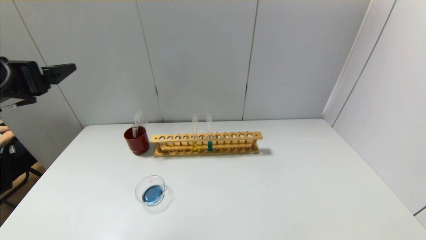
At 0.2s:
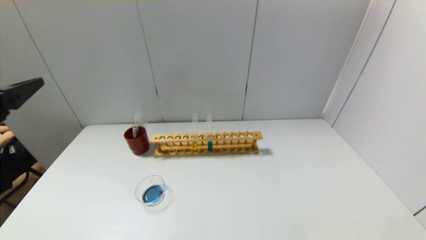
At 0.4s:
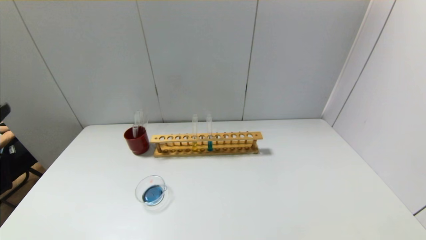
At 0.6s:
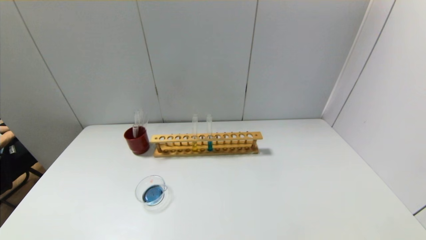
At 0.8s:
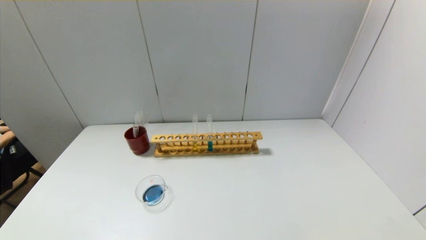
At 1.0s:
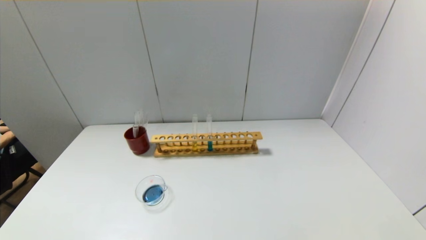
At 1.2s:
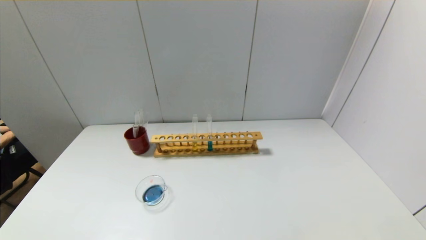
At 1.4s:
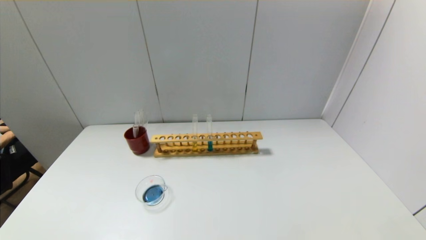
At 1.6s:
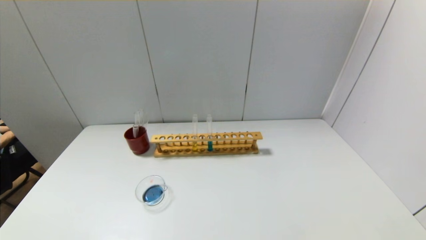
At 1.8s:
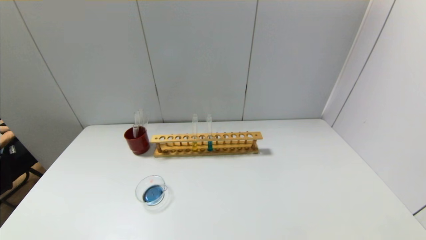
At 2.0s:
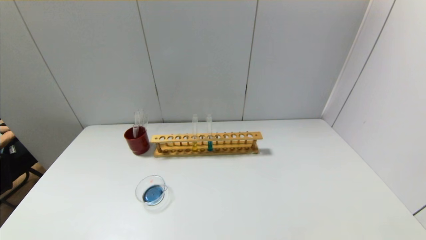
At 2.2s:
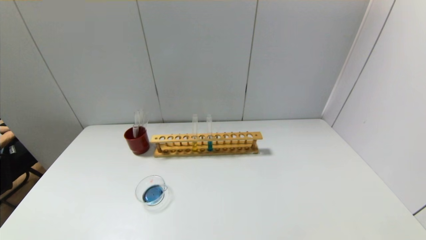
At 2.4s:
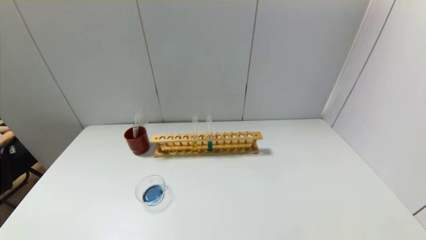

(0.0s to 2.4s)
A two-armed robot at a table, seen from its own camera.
0.0s - 1.2s: The left gripper travels backward and downward by approximately 30 cm.

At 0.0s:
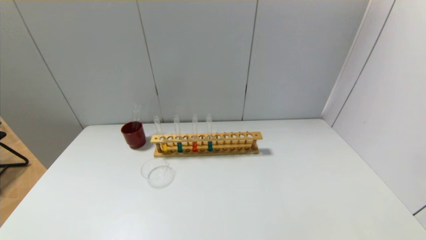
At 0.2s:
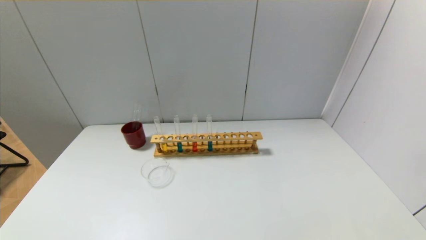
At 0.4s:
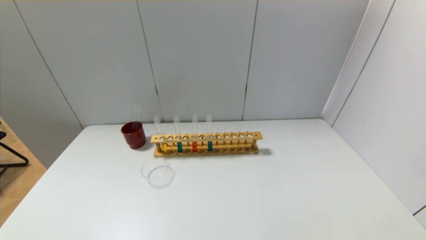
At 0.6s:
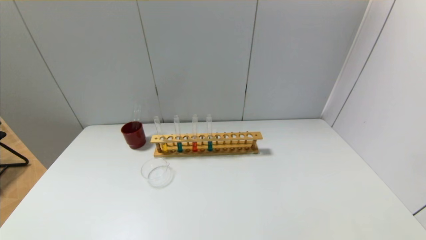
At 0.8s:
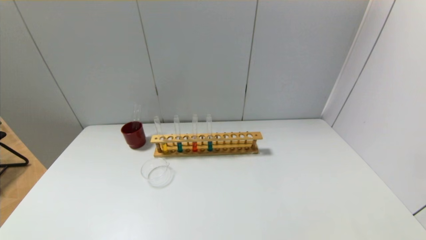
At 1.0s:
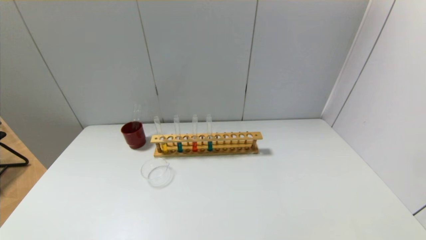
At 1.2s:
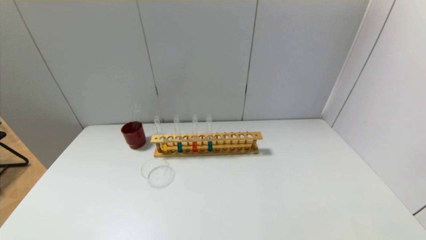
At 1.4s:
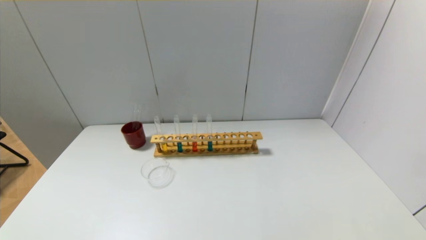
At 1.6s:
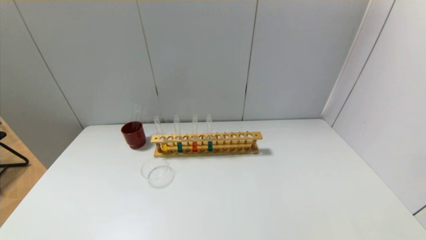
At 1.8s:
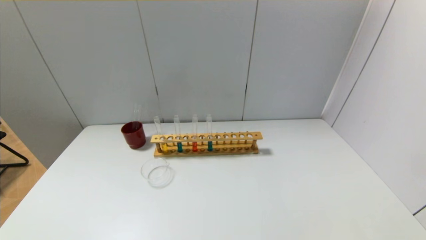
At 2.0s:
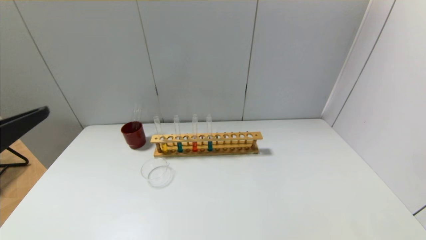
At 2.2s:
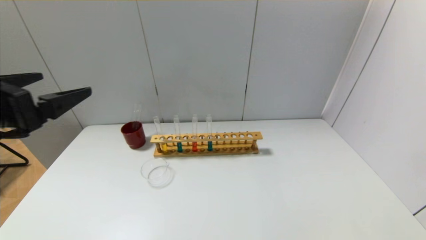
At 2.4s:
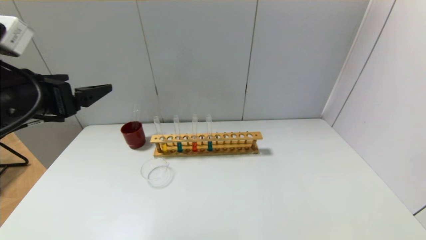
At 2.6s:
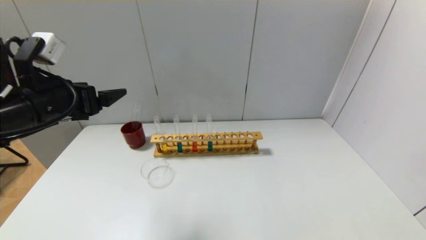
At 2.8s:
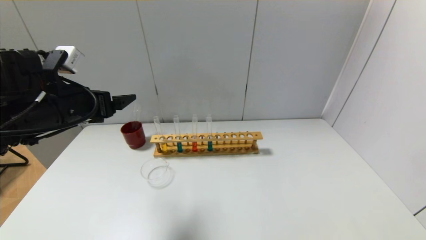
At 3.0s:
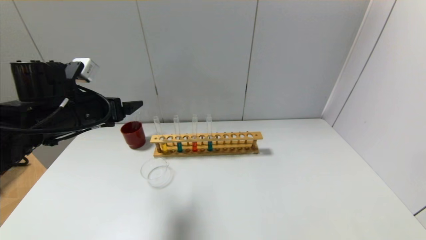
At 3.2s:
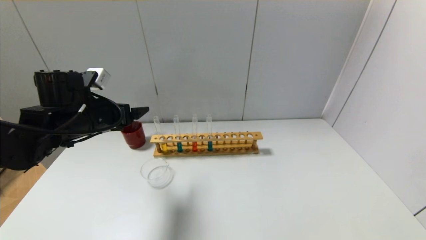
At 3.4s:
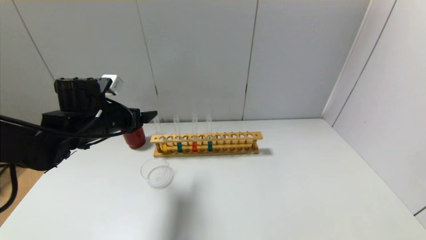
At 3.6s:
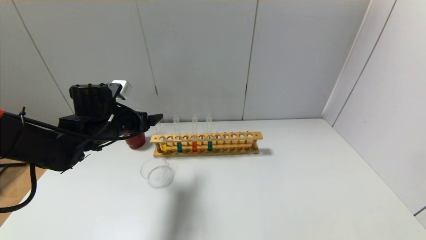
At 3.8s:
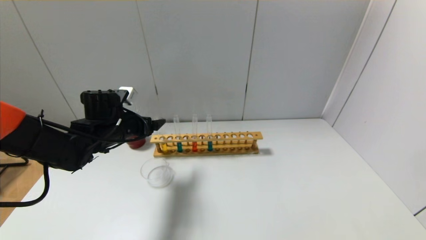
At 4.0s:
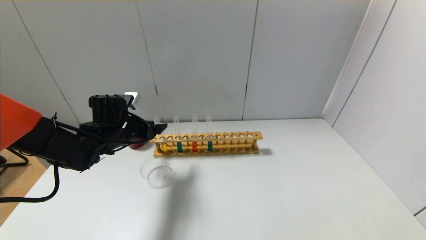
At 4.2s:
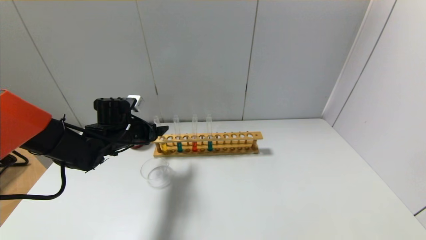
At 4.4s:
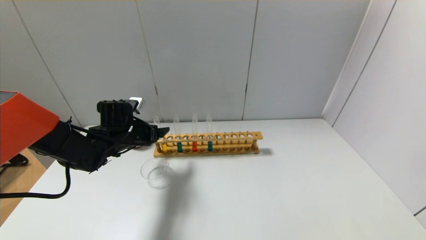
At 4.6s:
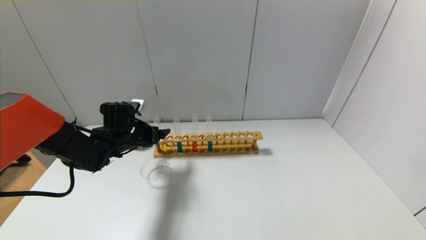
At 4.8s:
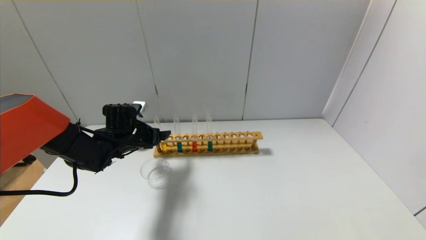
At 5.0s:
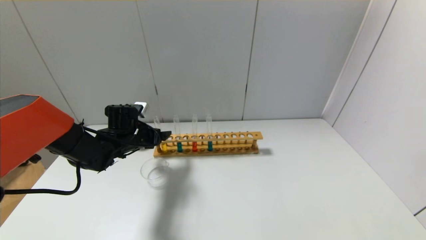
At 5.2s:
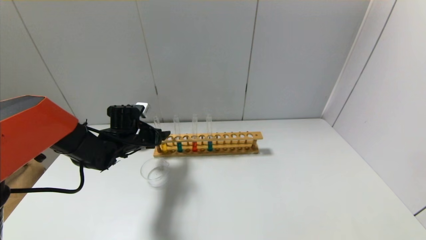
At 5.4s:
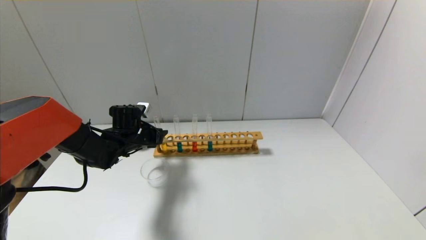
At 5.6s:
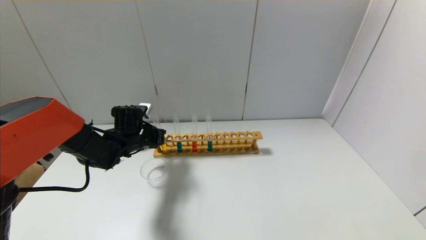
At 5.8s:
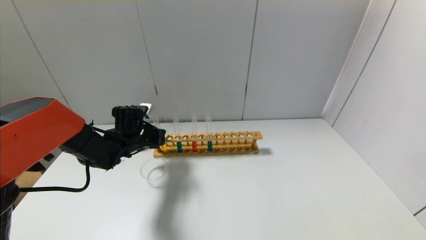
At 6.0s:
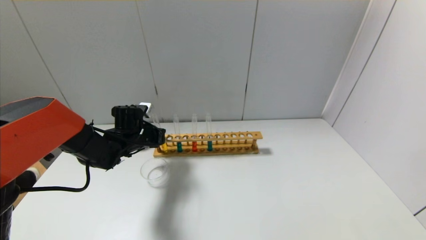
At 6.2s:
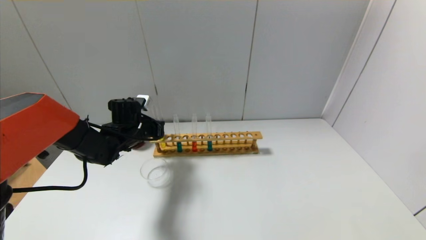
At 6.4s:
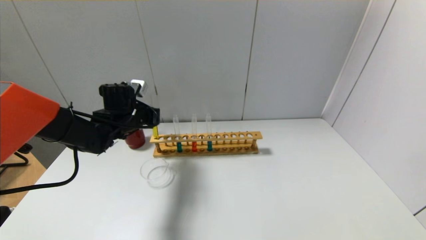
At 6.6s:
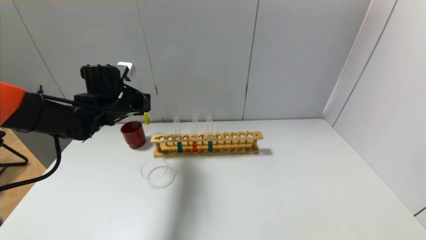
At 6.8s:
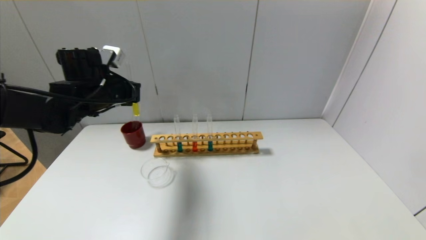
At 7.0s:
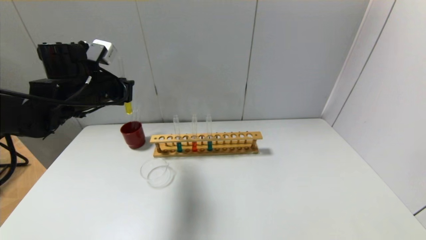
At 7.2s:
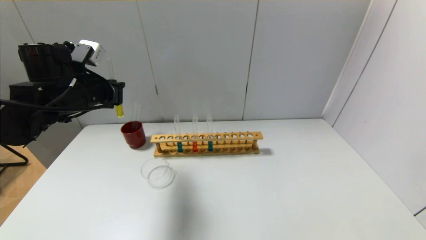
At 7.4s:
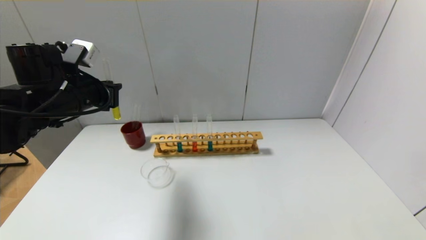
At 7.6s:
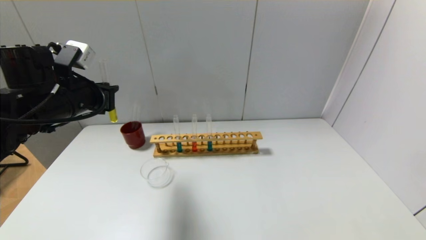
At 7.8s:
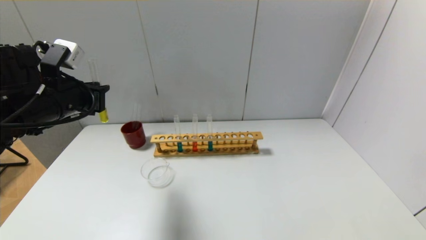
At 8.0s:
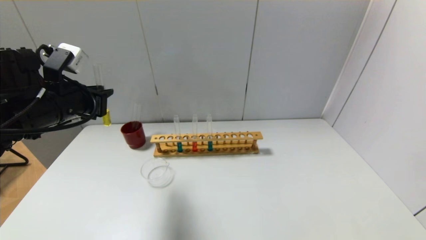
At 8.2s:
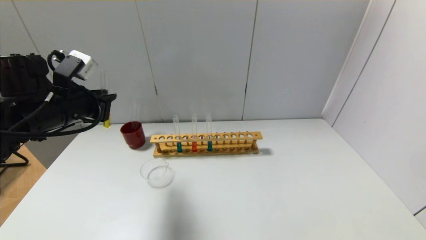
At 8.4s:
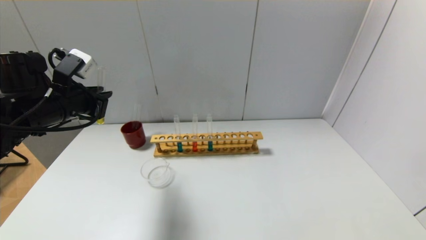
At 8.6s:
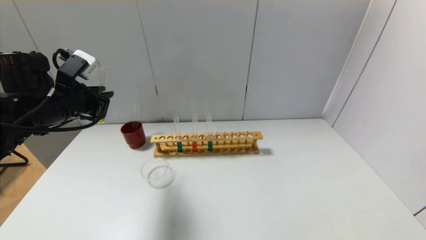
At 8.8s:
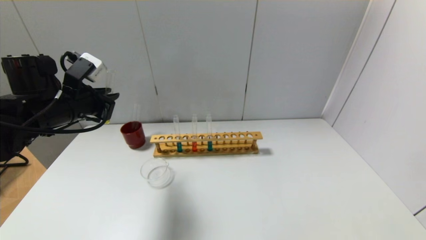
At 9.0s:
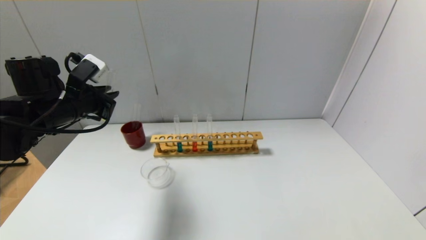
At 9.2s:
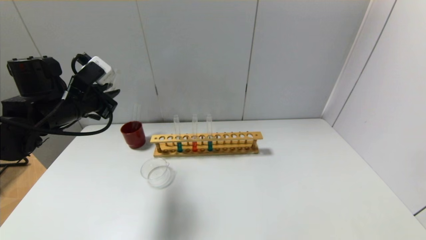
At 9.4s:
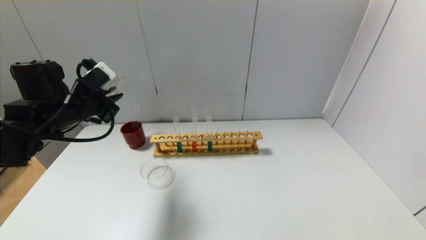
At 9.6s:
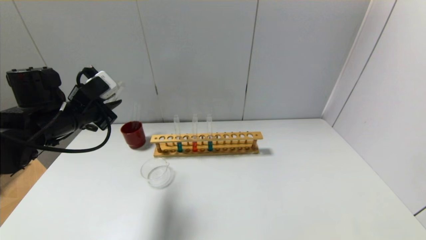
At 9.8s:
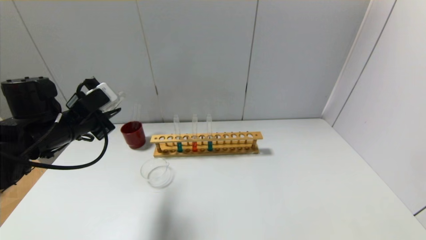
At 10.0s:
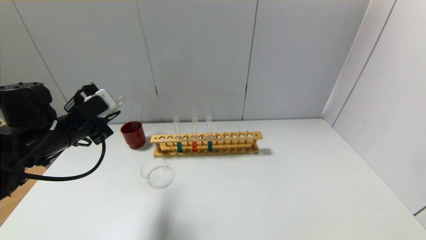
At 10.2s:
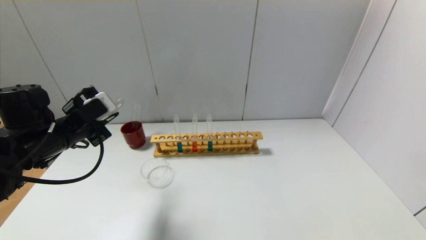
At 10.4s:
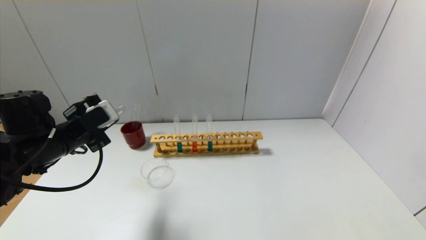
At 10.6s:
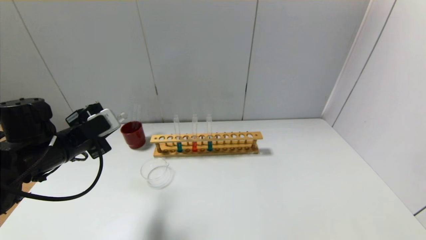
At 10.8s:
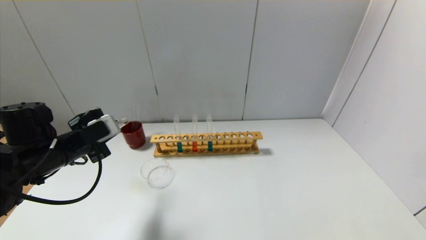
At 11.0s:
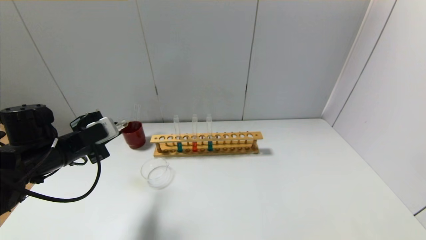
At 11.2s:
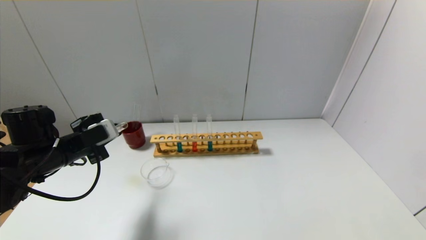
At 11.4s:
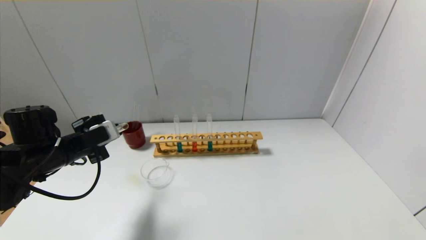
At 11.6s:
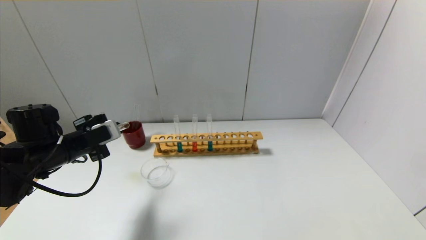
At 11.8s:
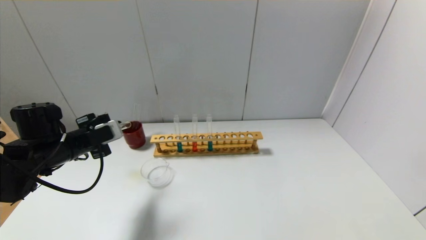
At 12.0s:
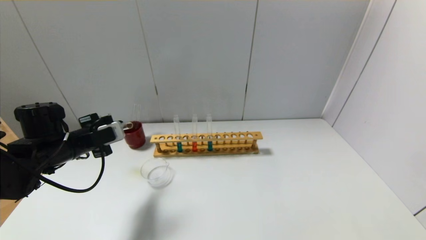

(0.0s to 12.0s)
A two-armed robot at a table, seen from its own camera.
Step, 0.0s - 5.6s: Grasp the yellow reagent with the left gripper.
1.6s - 3.0s: The left gripper goes some 30 cm forward.
3.0s - 4.4s: The left gripper travels downward and forward by about 15 cm.
4.4s - 6.0s: The left gripper closes.
6.0s - 7.6s: The left gripper moves upward and backward, approximately 20 cm.
7.6s - 9.0s: The grippers move only a little.
9.0s - 10.4s: The left gripper changes place by approximately 5 cm.
10.4s - 12.0s: The left gripper changes place by approximately 5 cm.

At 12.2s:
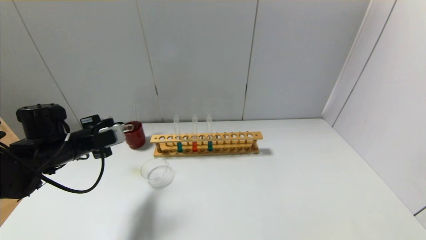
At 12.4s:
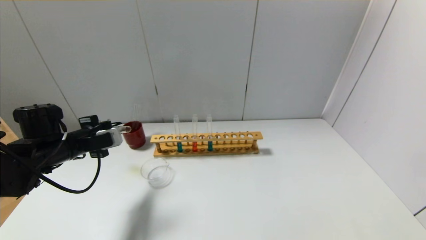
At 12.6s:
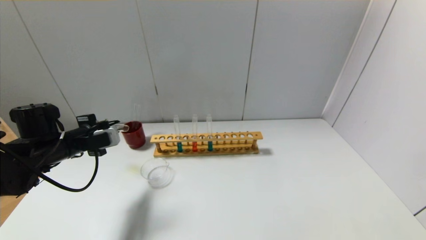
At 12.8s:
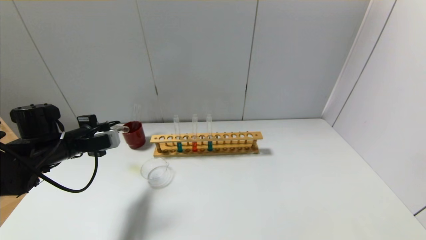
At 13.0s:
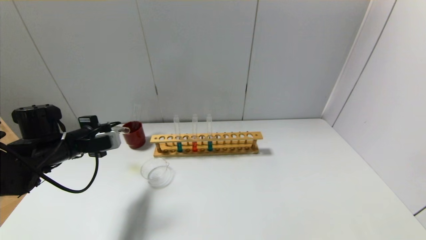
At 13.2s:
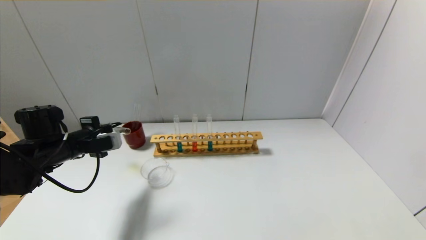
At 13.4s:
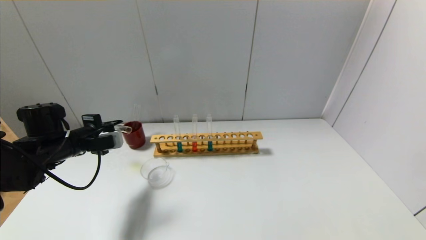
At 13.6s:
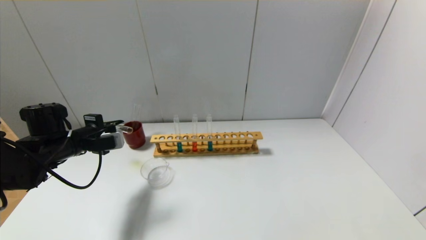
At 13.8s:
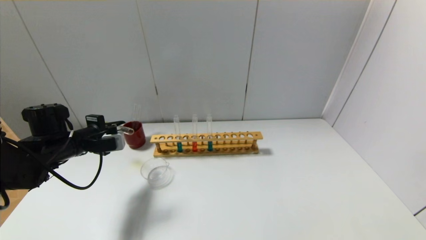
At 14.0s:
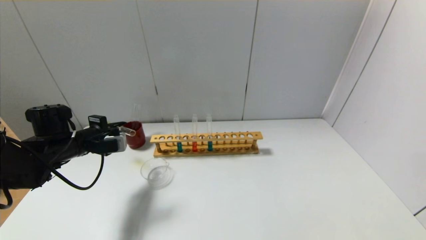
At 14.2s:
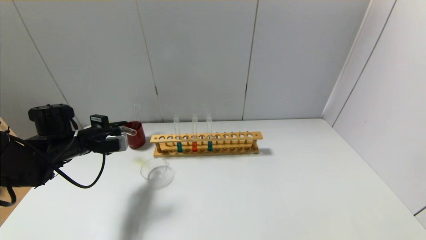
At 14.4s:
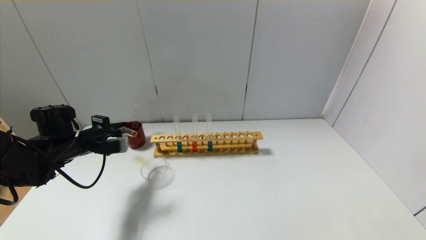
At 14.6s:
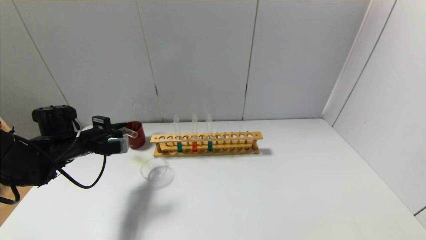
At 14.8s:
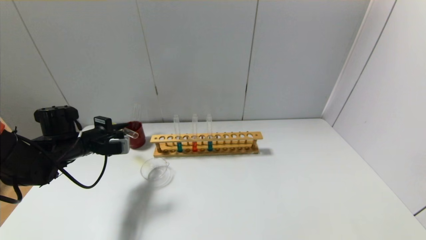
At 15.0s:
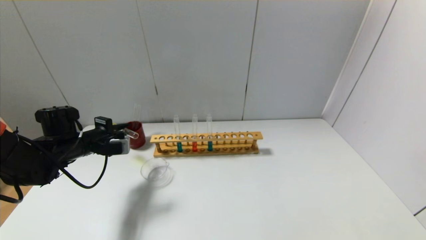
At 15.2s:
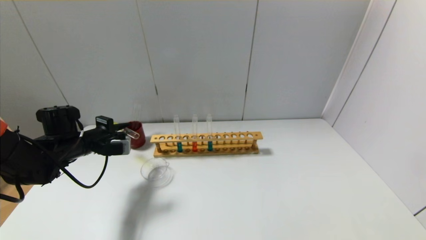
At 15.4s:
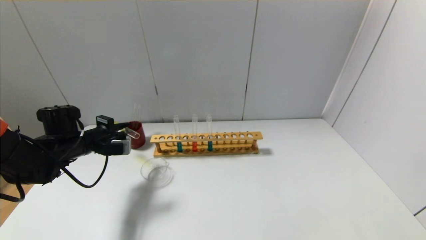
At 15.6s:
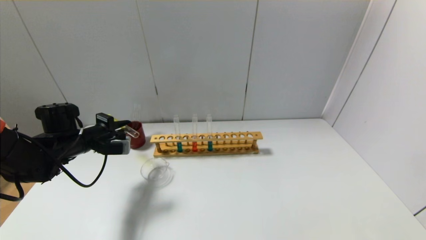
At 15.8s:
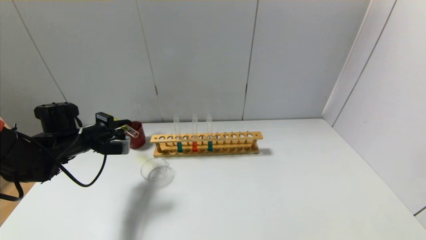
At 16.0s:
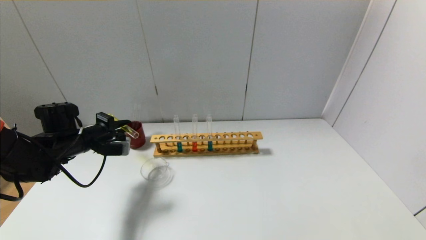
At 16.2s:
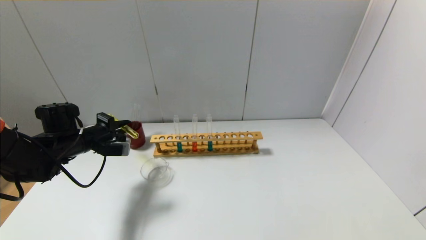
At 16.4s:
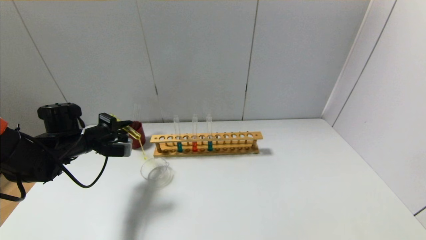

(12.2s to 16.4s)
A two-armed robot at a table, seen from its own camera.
12.2s - 15.0s: The grippers move only a little.
15.0s - 16.4s: The grippers move only a little.
